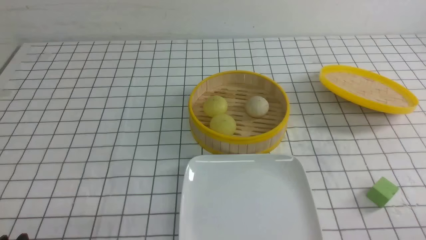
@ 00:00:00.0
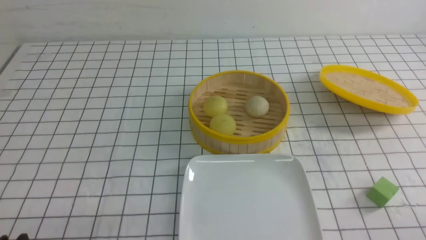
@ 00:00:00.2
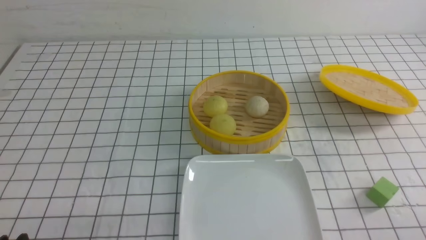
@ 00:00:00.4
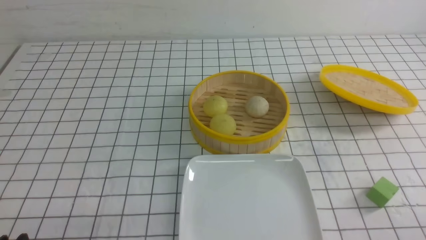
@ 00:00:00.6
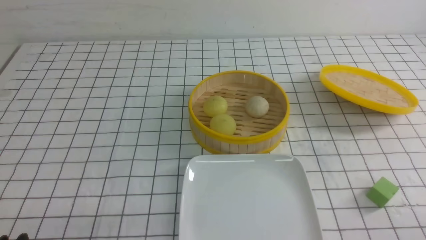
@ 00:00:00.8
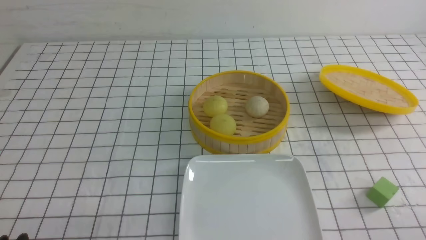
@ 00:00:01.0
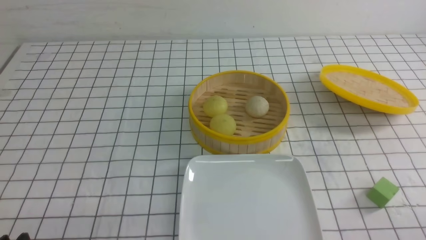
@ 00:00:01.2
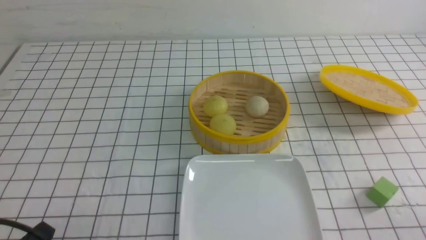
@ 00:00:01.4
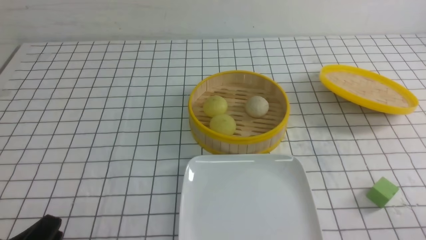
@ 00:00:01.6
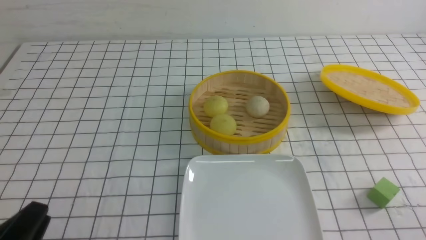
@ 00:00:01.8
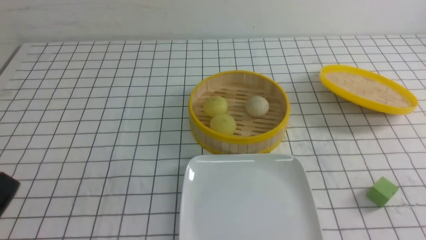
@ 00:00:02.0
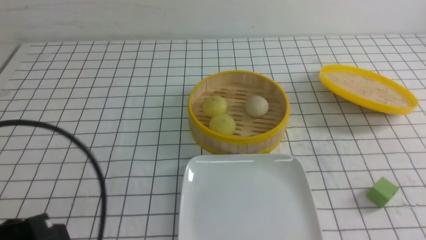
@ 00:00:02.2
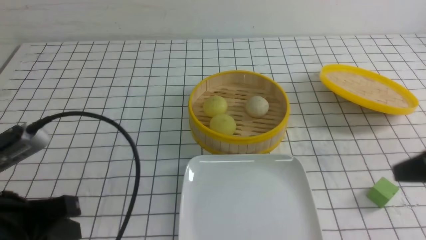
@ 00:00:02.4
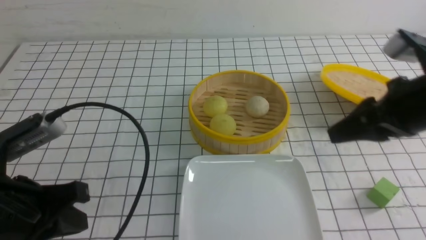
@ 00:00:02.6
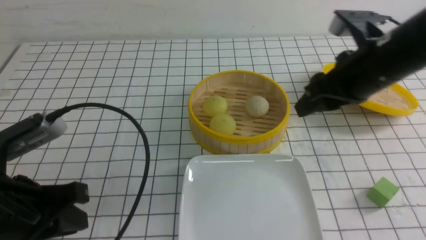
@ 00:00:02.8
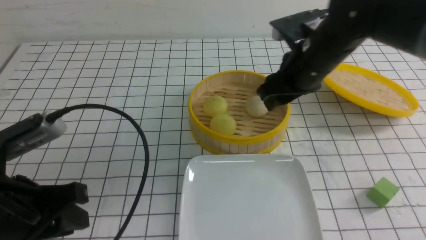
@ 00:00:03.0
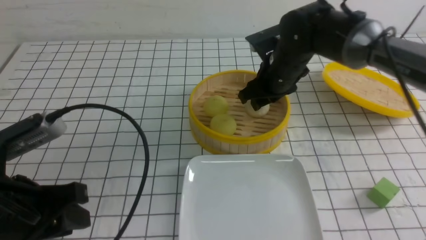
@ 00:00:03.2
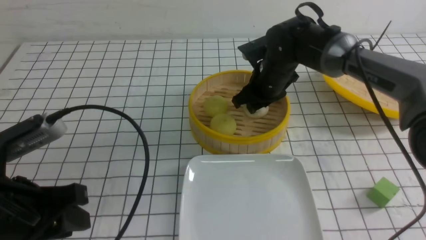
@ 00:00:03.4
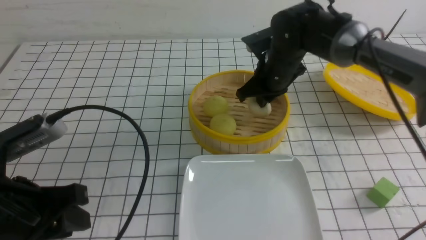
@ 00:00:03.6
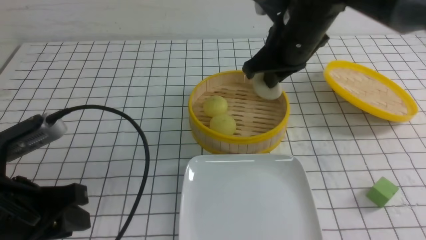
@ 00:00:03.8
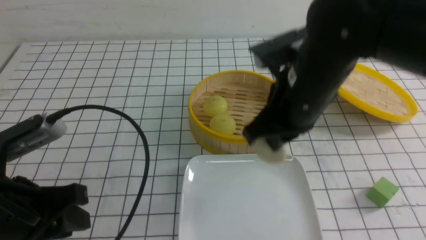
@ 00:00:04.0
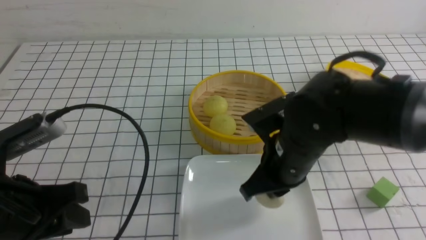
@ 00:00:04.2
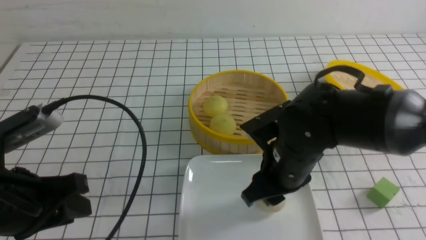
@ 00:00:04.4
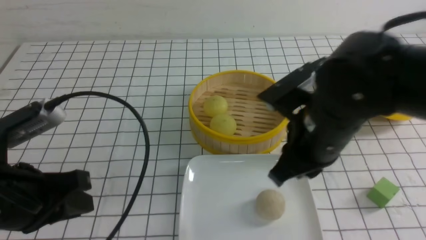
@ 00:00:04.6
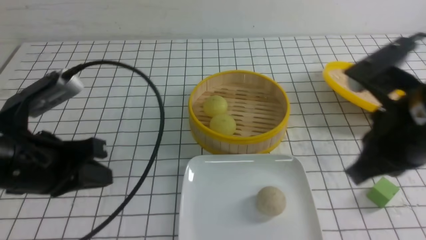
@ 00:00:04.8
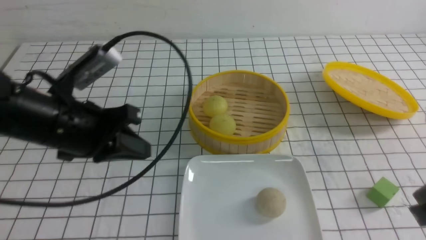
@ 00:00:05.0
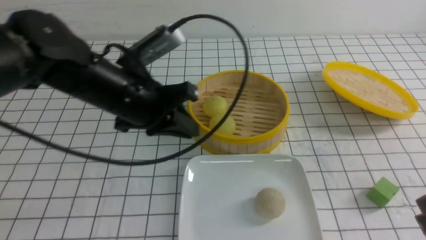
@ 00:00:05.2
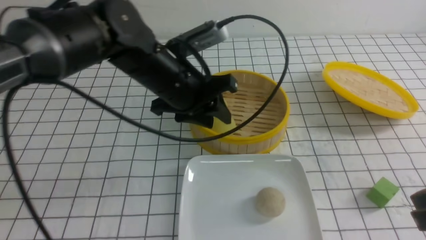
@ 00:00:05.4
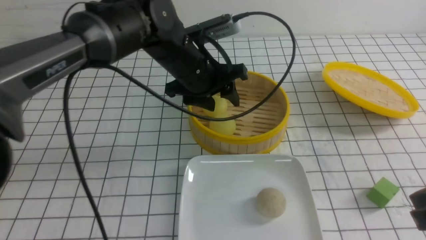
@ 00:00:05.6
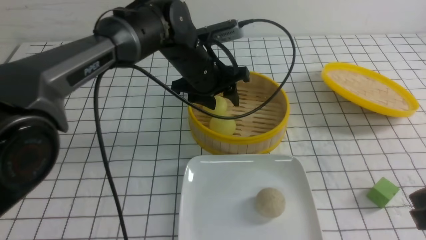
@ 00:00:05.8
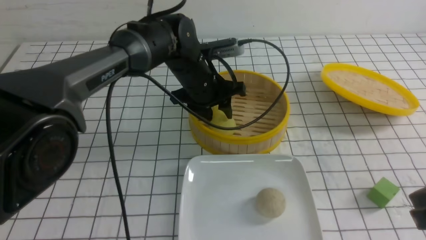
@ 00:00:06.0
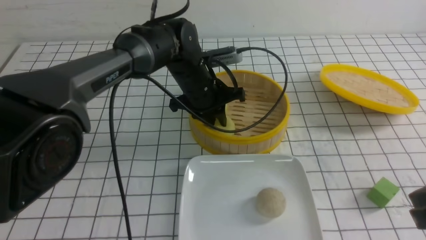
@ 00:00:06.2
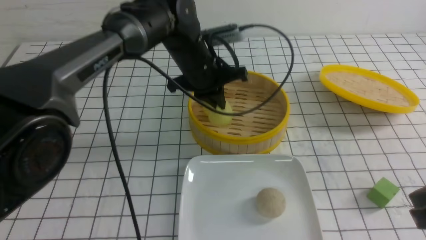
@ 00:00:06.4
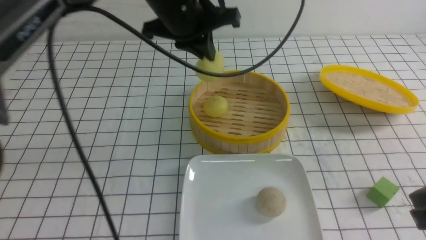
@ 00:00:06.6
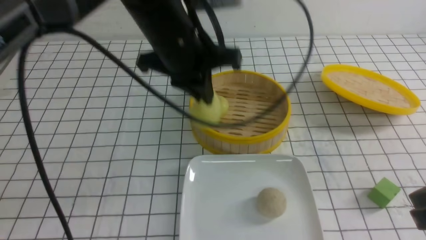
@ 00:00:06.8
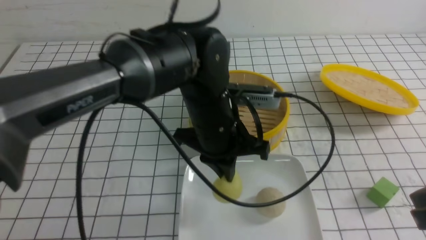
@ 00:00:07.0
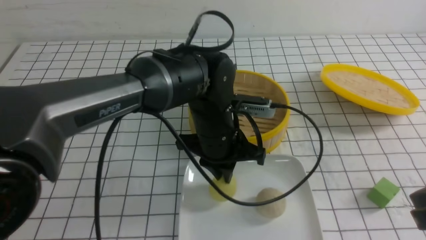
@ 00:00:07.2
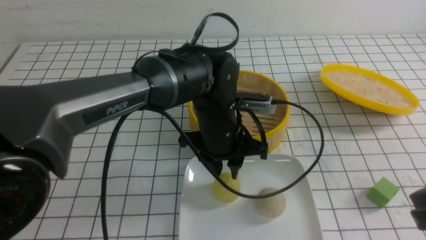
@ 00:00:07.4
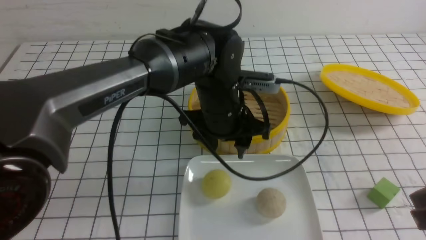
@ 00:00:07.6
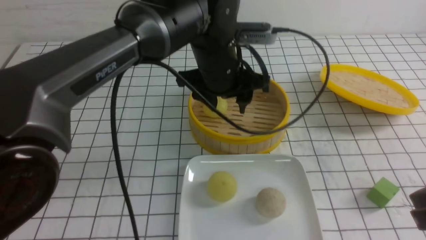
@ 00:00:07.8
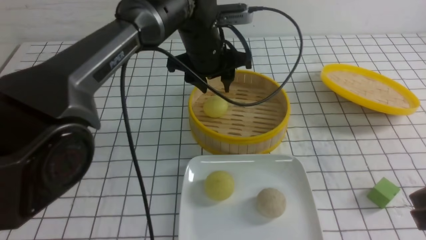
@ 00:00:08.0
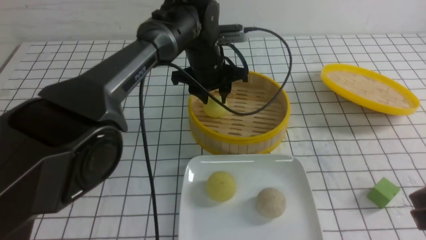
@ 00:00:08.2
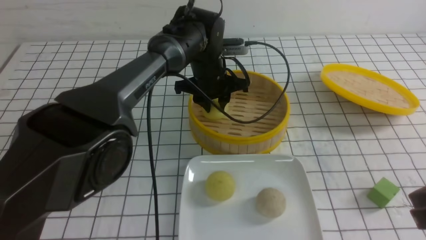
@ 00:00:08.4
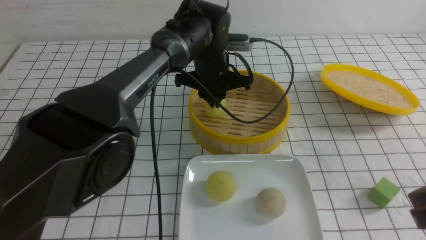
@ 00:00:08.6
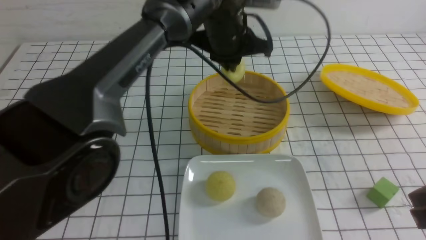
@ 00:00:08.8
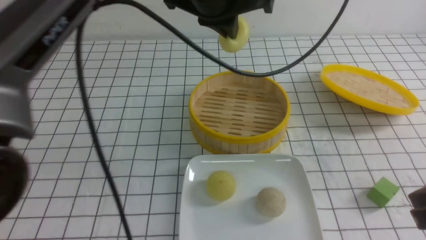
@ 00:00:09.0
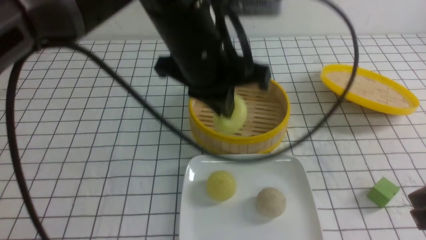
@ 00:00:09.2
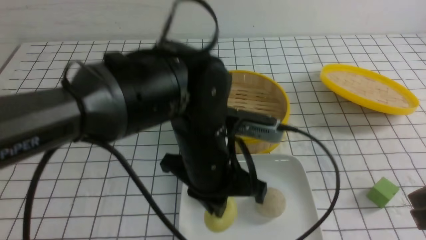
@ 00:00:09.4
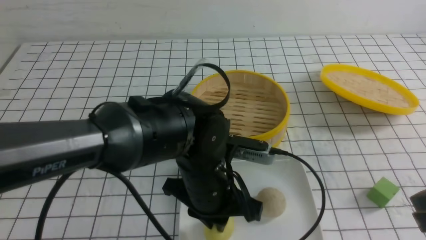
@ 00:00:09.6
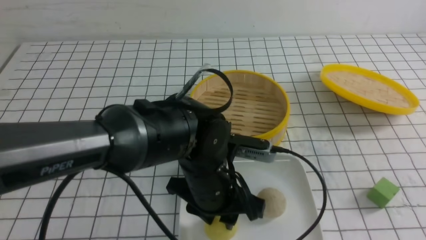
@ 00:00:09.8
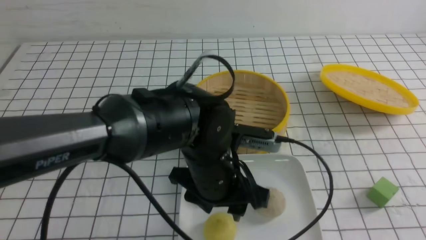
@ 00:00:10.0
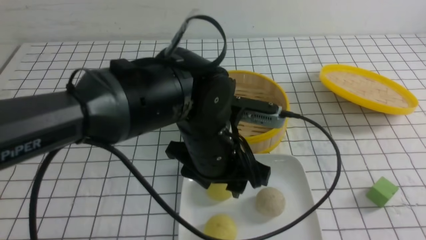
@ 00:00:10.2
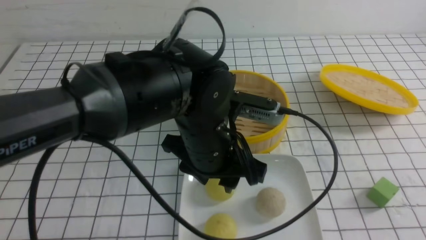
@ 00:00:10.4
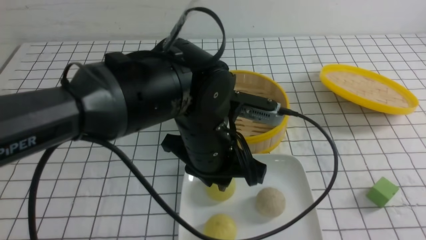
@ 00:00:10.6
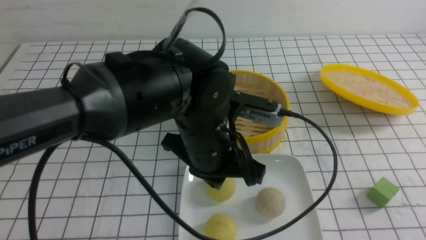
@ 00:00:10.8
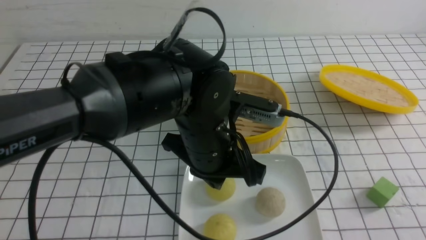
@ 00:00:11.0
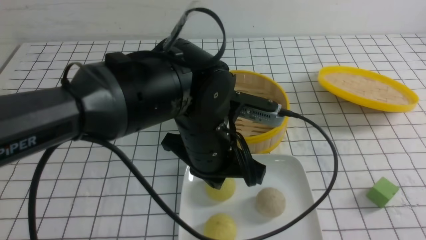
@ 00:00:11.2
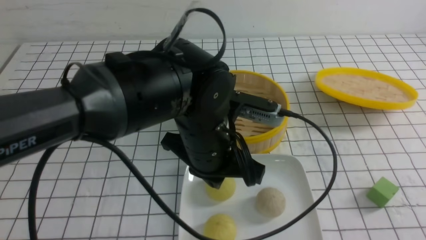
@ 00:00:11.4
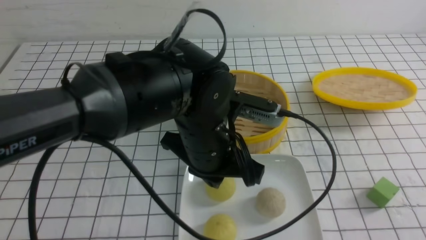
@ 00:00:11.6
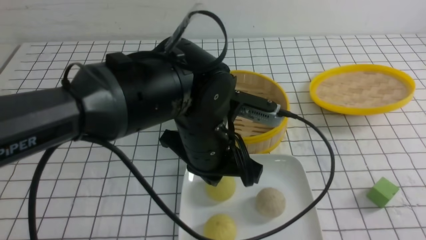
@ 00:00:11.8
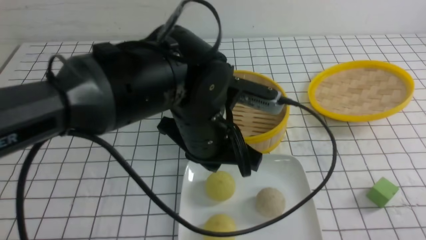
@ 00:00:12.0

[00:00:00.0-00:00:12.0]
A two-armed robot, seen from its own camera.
Step, 00:00:00.0 to 00:00:03.6: use the right arm to grab the steamed stuffed bun that is closest to it.
Step, 00:00:03.8 to 00:00:04.6: use the right arm to put the steamed stuffed bun into the plate.
Step, 00:00:04.8 to 00:00:06.4: use the left arm to grab the steamed stuffed bun that is closest to it.
Step, 00:00:06.6 to 00:00:07.6: use the left arm to put the steamed stuffed bun into the plate.
Step, 00:00:07.8 to 00:00:08.6: use the left arm to grab the steamed stuffed bun that is closest to it.
Step, 00:00:08.8 to 00:00:10.0: use the left arm to put the steamed stuffed bun into the plate.
00:00:01.6 to 00:00:03.0: The right gripper is displaced forward and to the left by some 35 cm, and closes and opens again, while the left gripper is displaced forward and upward by some 10 cm, and closes and opens again.
00:00:03.0 to 00:00:04.4: The right gripper moves backward, about 15 cm, and closes up.
00:00:04.4 to 00:00:06.0: The left gripper goes about 35 cm forward and to the right, and closes and opens again, while the right gripper shifts approximately 20 cm to the right and backward, and closes its fingers.
00:00:06.0 to 00:00:07.6: The left gripper travels backward by approximately 10 cm, moves some 10 cm upward and comes back, and closes, then opens again.
00:00:07.6 to 00:00:09.0: The left gripper shifts roughly 10 cm upward, and closes up.
00:00:09.0 to 00:00:10.4: The left gripper moves downward and backward, approximately 15 cm, and opens. The right gripper moves backward and to the right, about 15 cm.
00:00:10.4 to 00:00:12.0: The right gripper goes some 10 cm downward. The left gripper closes.

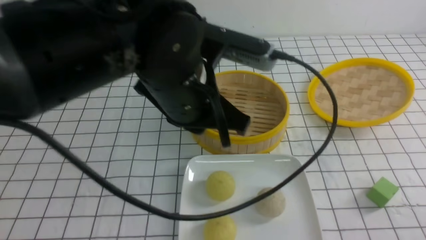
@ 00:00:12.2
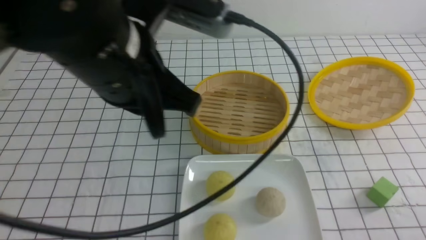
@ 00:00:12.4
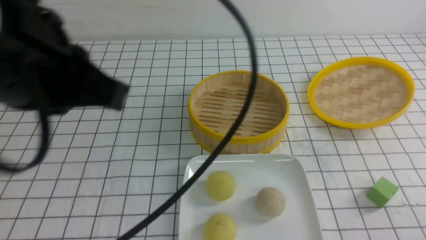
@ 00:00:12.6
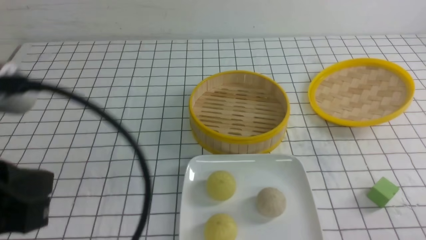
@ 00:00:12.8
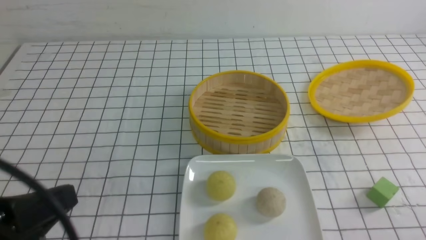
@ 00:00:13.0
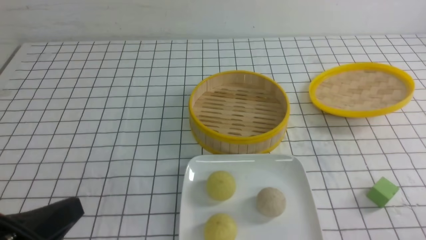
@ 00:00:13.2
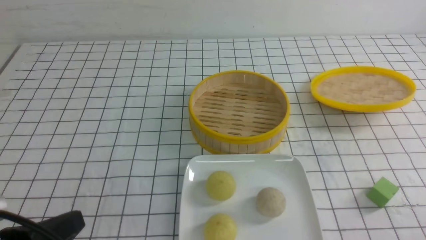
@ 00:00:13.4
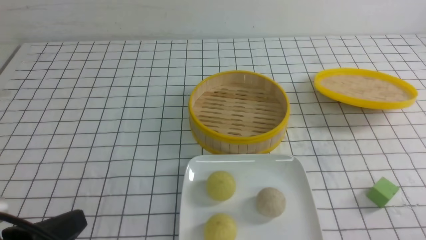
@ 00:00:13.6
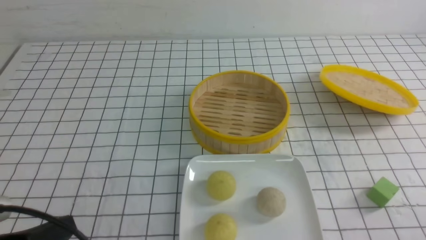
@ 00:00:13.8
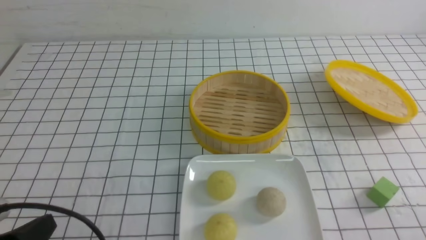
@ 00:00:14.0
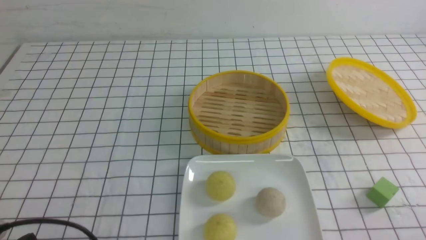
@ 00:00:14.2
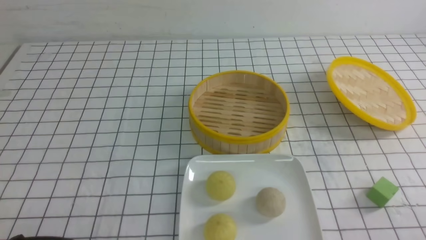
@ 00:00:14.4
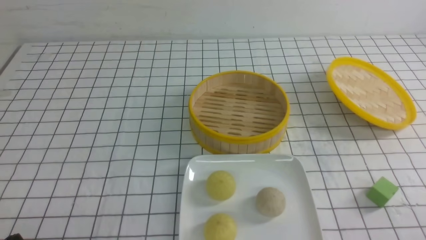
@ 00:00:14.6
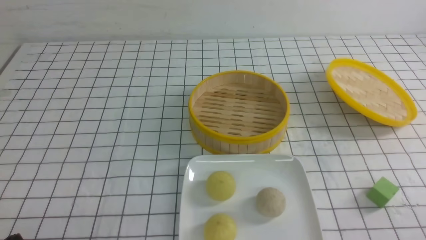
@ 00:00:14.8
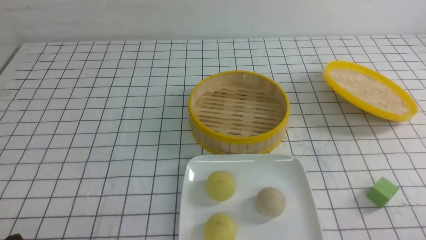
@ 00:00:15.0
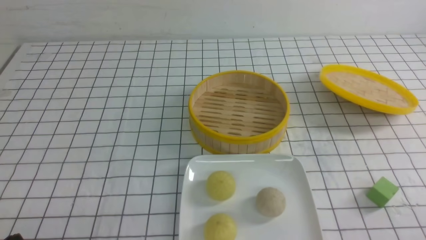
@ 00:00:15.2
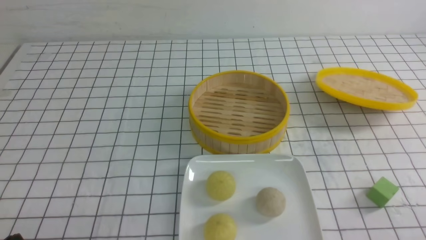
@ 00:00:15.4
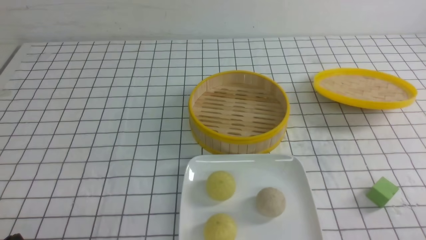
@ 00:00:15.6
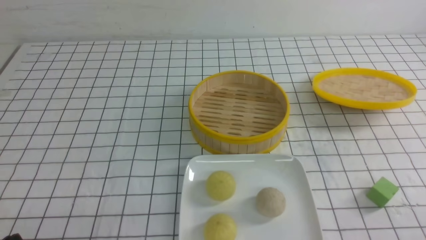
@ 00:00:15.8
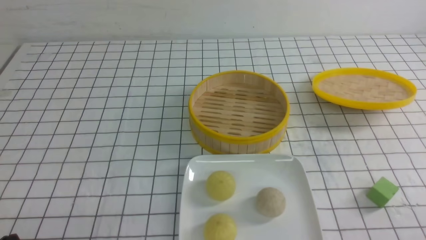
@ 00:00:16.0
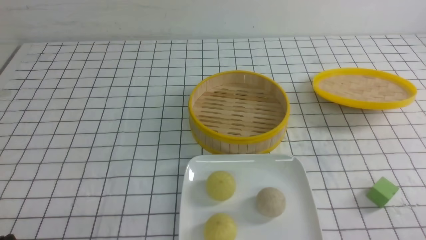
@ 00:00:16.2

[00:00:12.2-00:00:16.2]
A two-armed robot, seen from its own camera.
00:00:12.2 to 00:00:13.6: The left gripper goes roughly 25 cm to the left, backward and downward.
00:00:13.6 to 00:00:14.8: The left gripper heads downward, covering some 5 cm.
00:00:14.8 to 00:00:16.2: The grippers move only a little.
